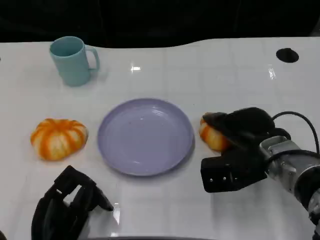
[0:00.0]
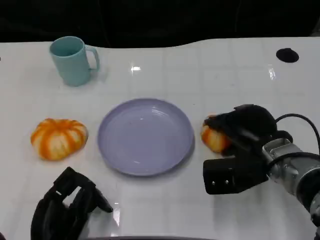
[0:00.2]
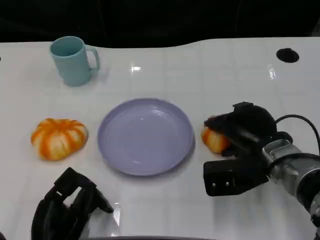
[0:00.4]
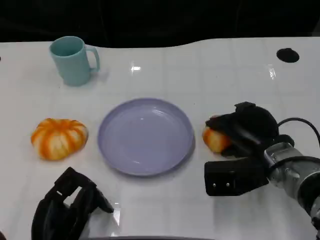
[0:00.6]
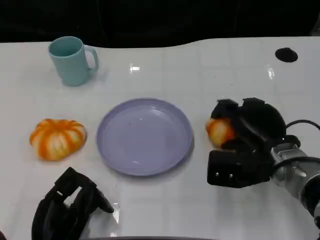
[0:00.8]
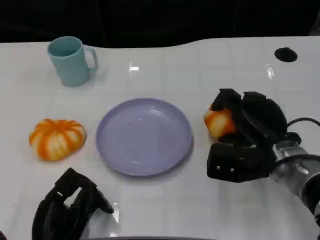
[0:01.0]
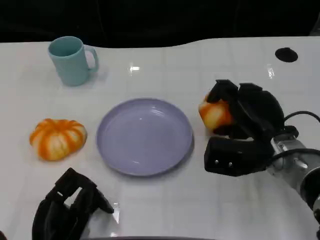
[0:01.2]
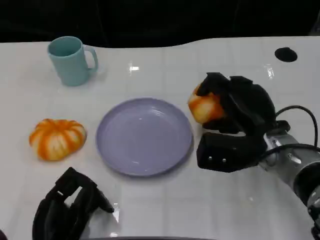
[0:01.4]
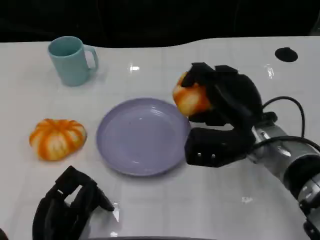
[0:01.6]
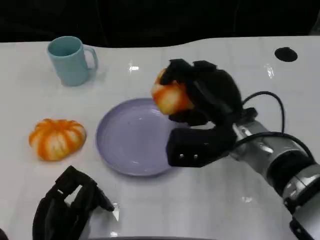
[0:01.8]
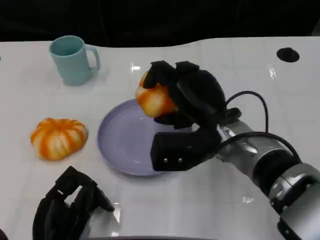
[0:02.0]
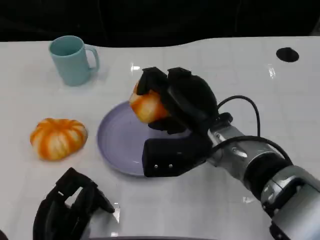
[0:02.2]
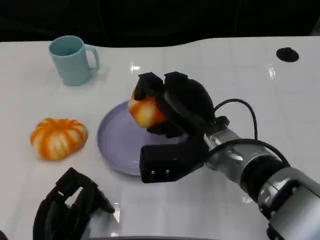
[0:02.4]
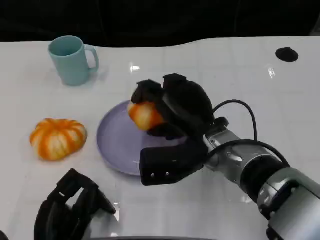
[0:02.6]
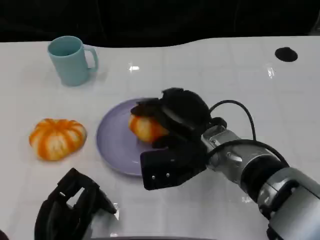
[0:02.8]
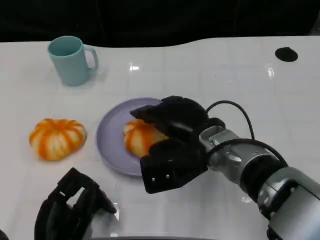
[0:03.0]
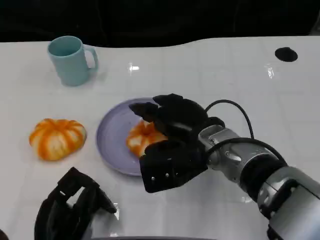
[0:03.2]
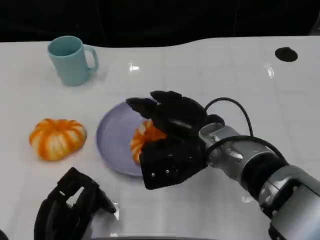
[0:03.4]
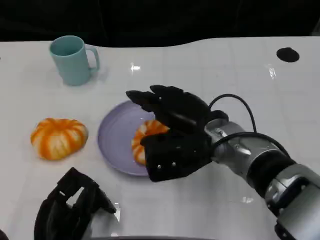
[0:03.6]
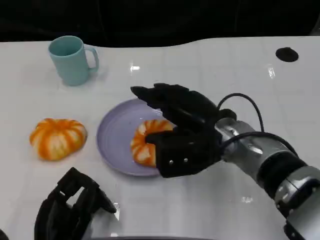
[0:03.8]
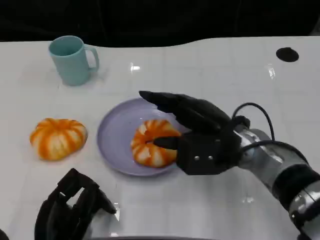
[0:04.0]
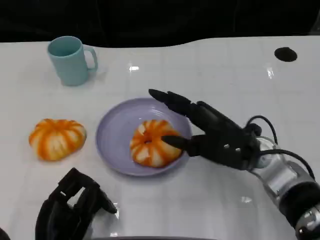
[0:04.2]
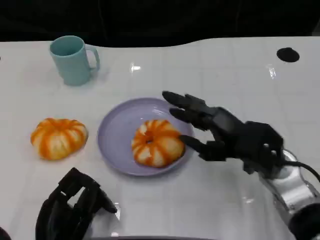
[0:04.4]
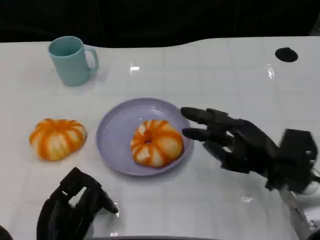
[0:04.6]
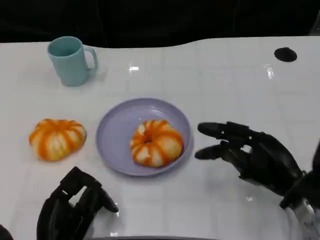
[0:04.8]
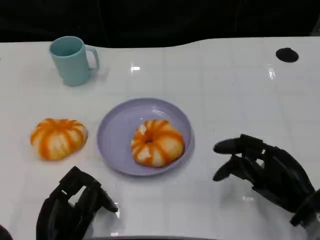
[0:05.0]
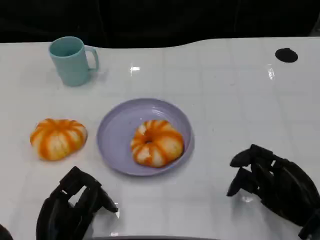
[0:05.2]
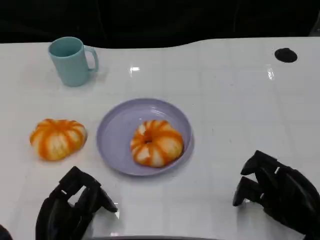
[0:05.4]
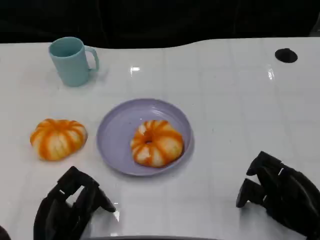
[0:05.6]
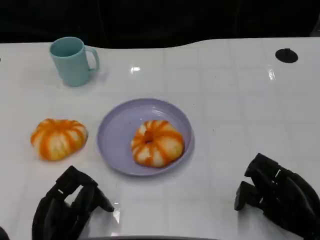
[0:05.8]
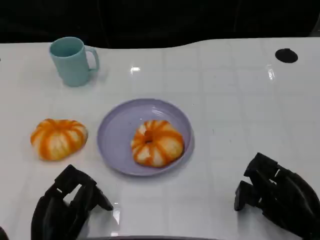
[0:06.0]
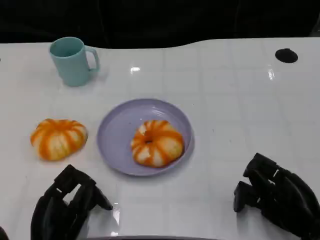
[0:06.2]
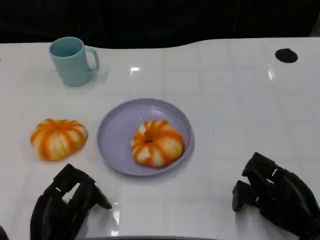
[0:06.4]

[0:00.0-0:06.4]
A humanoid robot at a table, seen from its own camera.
Task of the whole recording: Grasp the bread from the table and place it into the plate.
0:01.6 to 0:03.2: The right hand heads to the left, covering approximately 5 cm.
0:03.2 to 0:04.8: The right hand goes approximately 15 cm to the right.
0:04.8 to 0:06.4: The right hand shifts by about 5 cm.

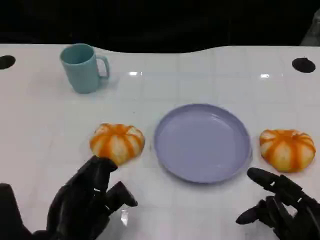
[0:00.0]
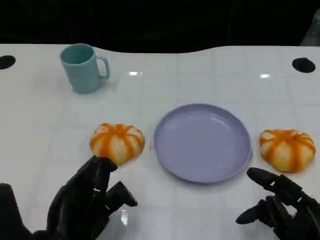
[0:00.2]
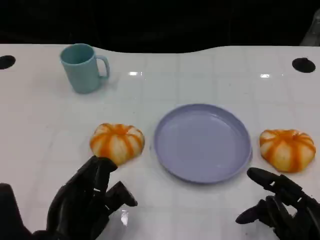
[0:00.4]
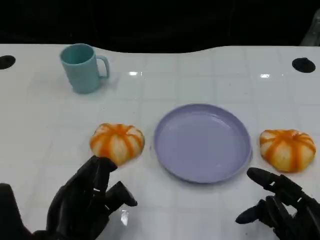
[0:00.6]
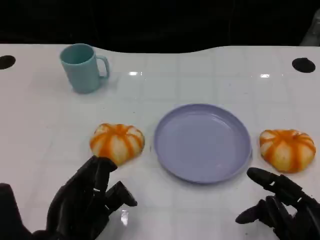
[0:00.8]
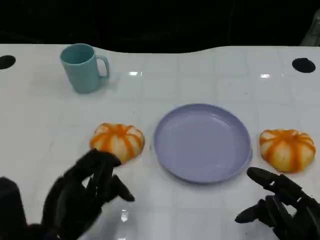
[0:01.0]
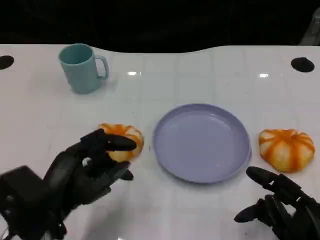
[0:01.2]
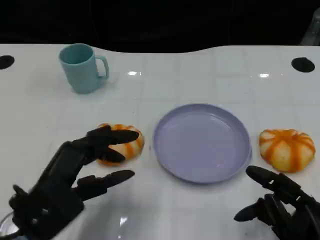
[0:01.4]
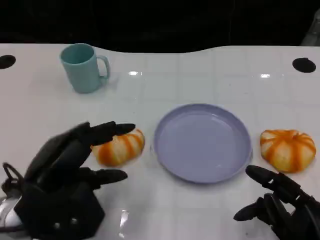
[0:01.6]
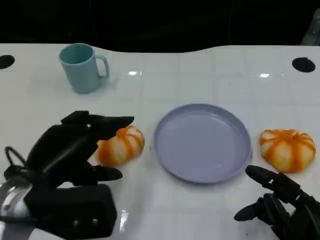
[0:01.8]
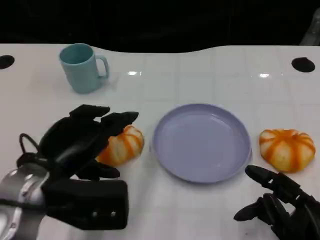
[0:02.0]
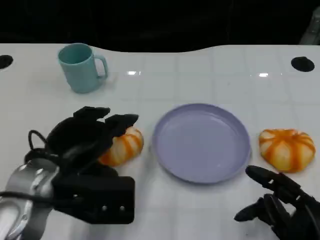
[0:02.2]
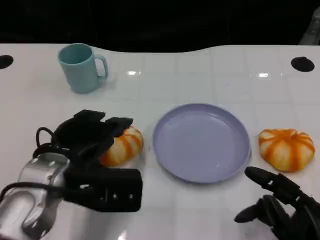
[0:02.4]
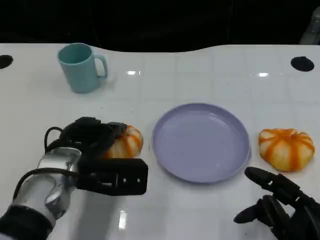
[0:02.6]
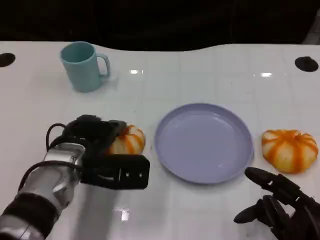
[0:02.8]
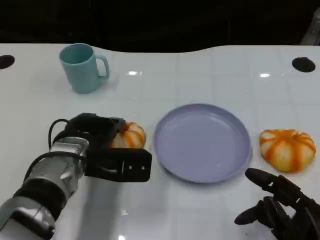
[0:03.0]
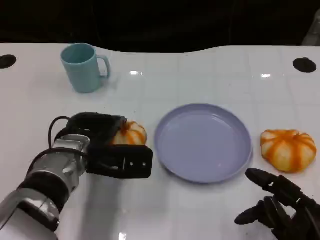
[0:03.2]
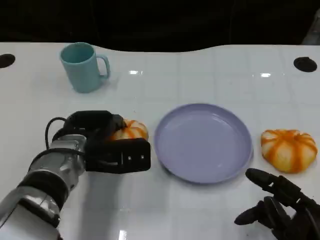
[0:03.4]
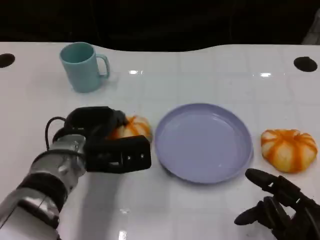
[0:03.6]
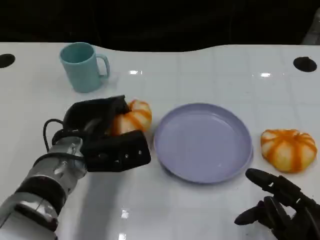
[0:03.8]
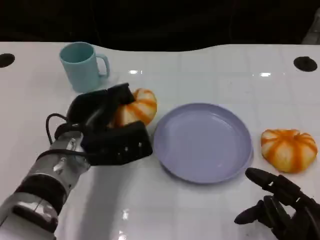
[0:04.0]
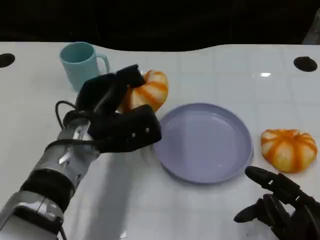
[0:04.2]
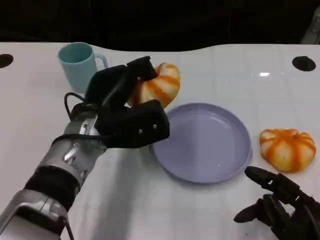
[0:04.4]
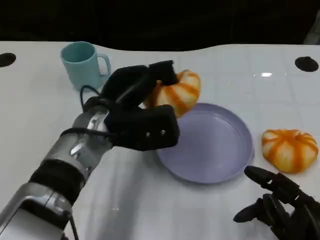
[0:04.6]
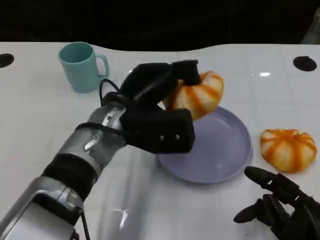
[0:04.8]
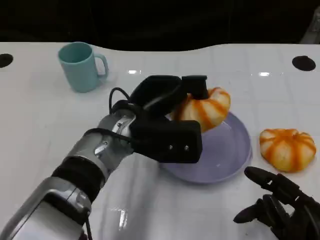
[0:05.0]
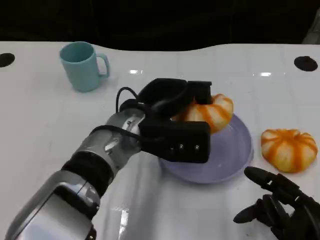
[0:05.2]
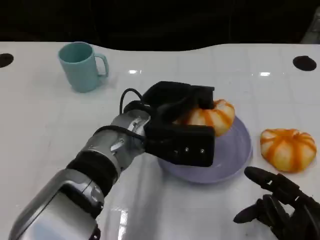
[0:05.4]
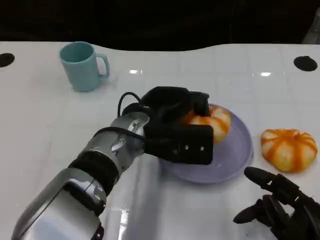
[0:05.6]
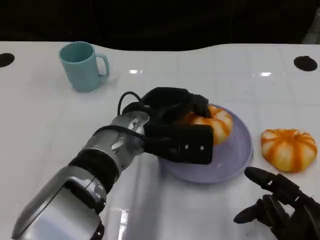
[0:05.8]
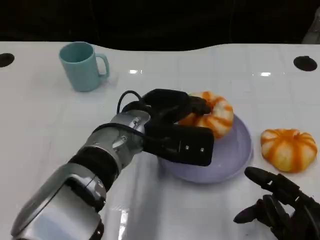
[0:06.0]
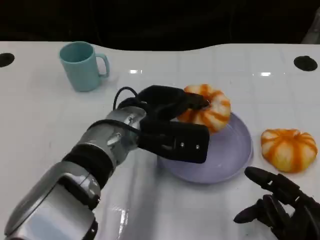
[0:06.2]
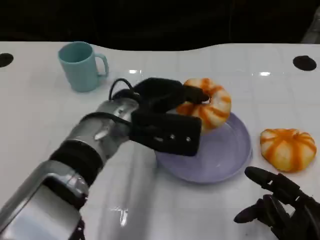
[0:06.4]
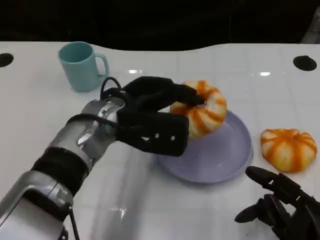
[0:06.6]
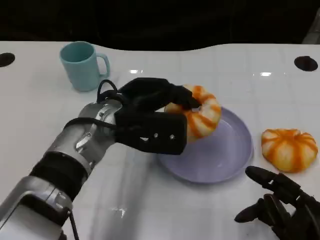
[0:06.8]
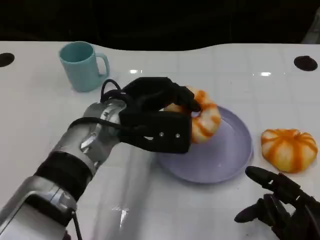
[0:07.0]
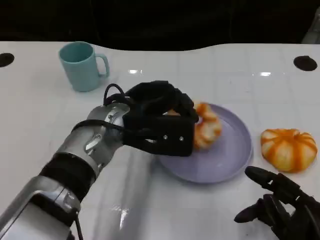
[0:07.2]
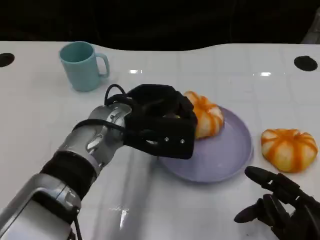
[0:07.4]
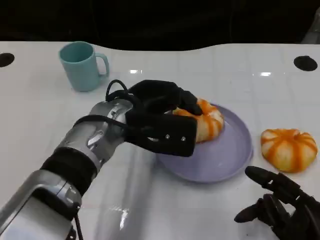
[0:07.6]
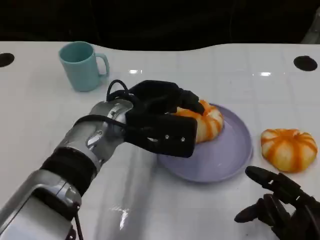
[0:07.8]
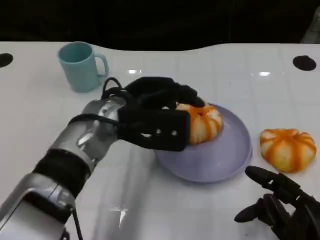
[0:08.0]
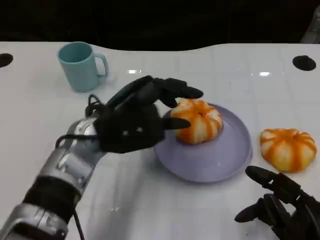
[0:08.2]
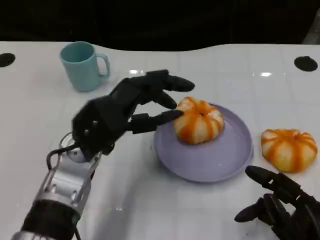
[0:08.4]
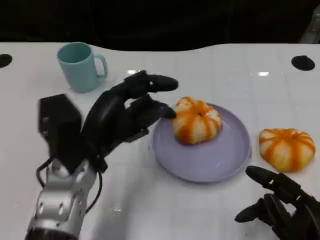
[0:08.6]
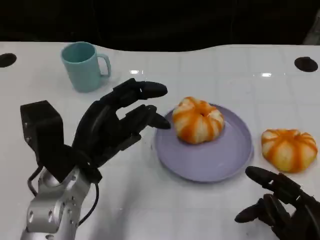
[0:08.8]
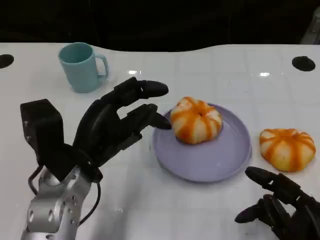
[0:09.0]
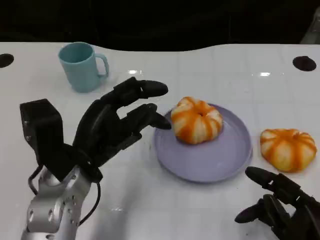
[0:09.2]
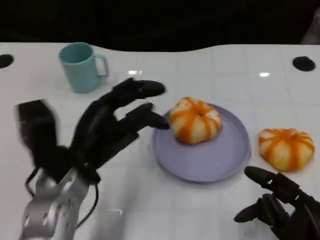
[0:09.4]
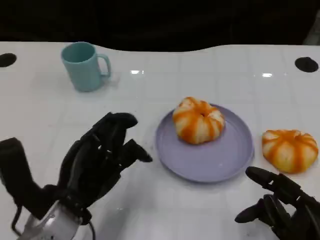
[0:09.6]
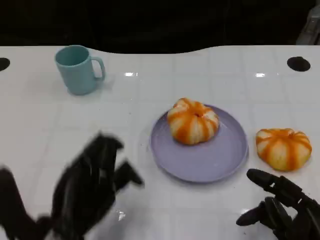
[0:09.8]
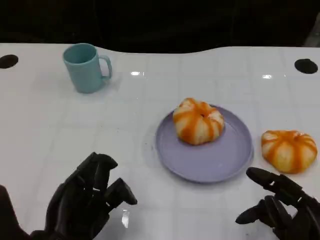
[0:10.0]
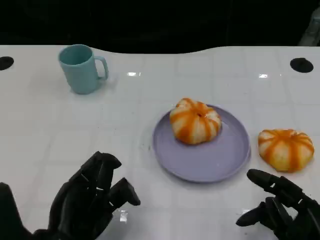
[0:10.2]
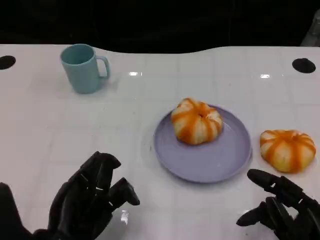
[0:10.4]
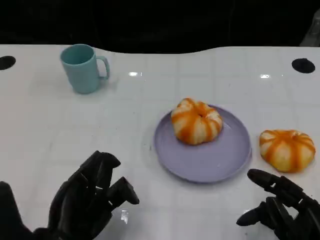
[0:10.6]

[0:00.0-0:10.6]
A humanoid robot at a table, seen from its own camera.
Task of the whole recording: Grasp the bread from the table and place it into the plate.
0:00.0 to 0:01.6: The left hand shifts approximately 5 cm upward.
0:01.6 to 0:03.0: The left hand heads forward and to the right, covering about 10 cm.
0:03.0 to 0:04.6: The left hand is displaced upward by approximately 5 cm.
0:07.6 to 0:09.0: The left hand heads to the left and backward, covering roughly 10 cm.
0:09.0 to 0:10.6: The left hand shifts approximately 10 cm backward.

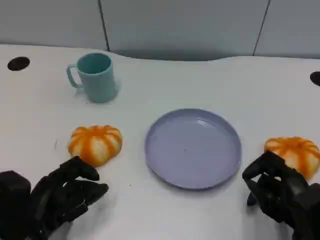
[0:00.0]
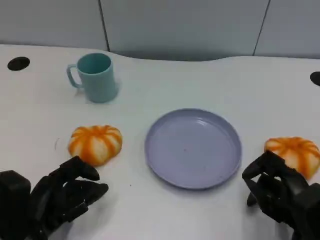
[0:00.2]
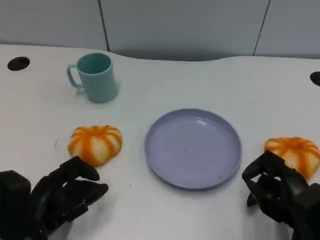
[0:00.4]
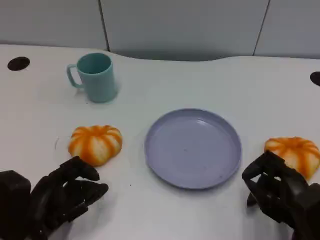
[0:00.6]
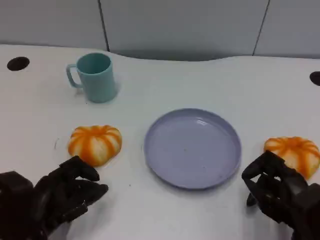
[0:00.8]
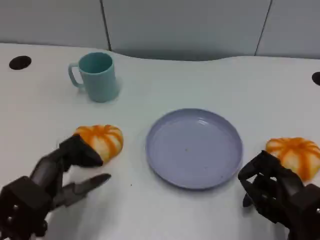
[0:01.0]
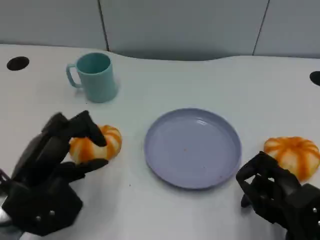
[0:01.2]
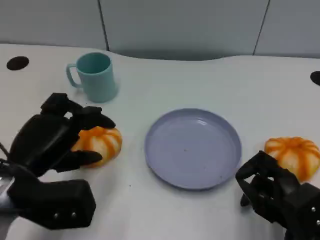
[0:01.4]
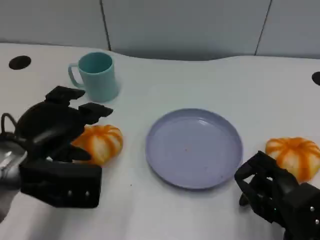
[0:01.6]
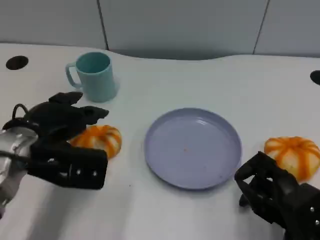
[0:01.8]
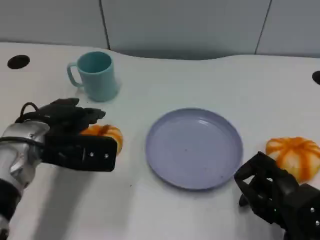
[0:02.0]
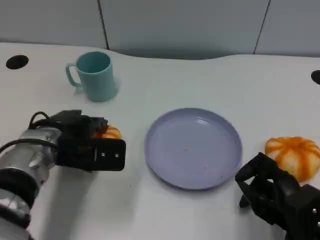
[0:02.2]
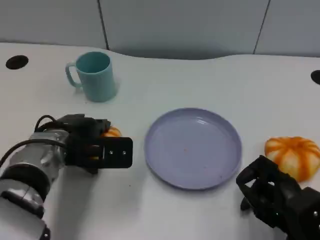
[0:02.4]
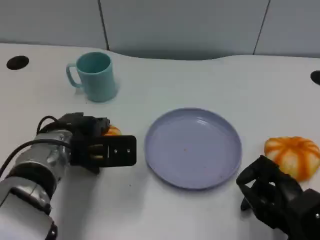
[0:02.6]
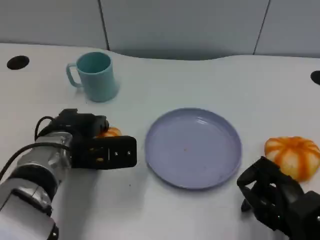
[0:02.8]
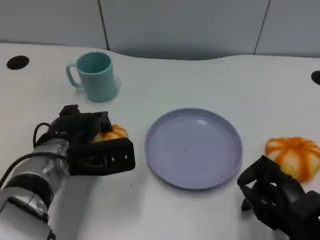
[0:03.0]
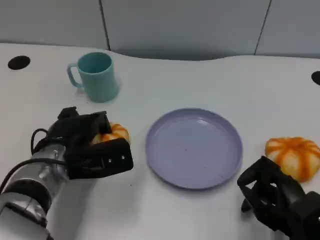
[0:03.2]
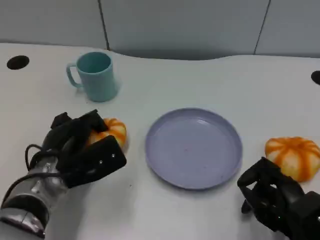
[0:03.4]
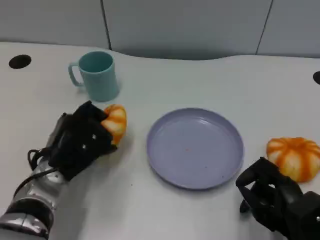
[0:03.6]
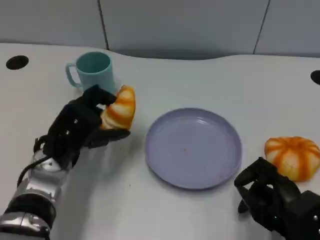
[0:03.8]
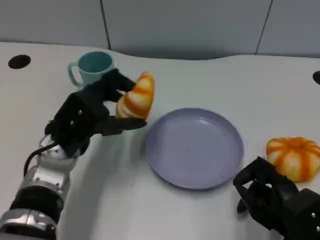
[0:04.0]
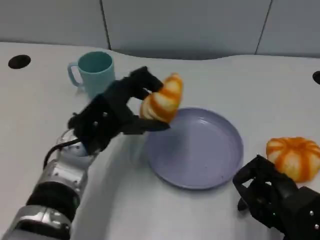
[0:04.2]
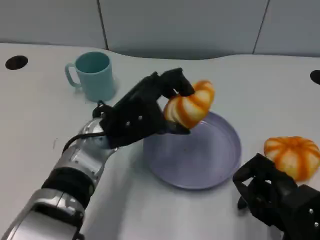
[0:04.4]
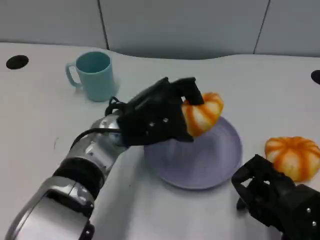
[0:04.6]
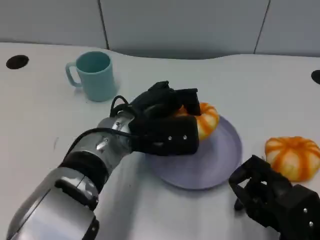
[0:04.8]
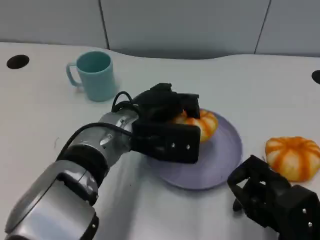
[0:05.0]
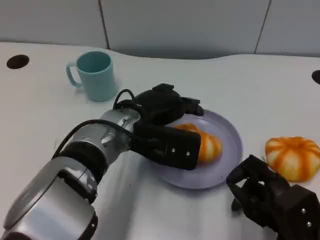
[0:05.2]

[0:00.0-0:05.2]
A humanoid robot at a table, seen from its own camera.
Task of the whole recording: Grasp the bread from the table and place it into the plate.
0:00.0 to 0:01.8: The left hand shifts approximately 15 cm upward and forward.
0:01.8 to 0:03.4: The left hand shifts some 10 cm downward.
0:03.4 to 0:05.2: The left hand travels to the right and upward by roughly 15 cm.
